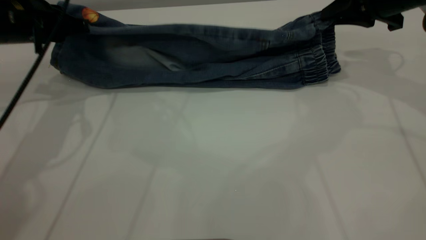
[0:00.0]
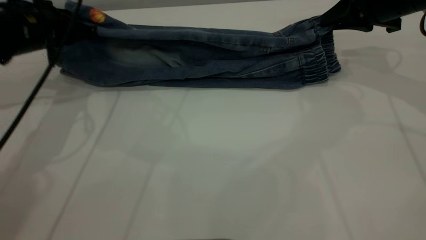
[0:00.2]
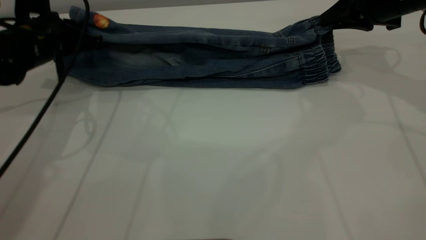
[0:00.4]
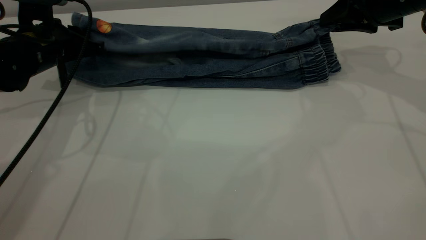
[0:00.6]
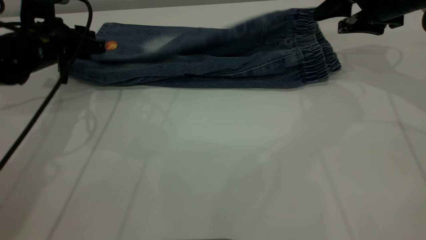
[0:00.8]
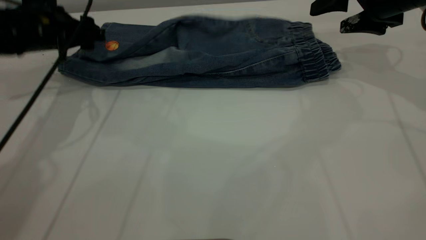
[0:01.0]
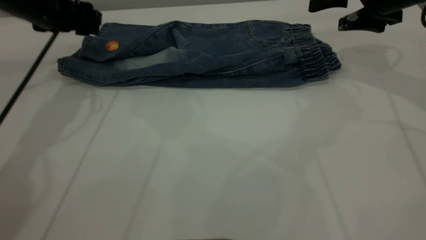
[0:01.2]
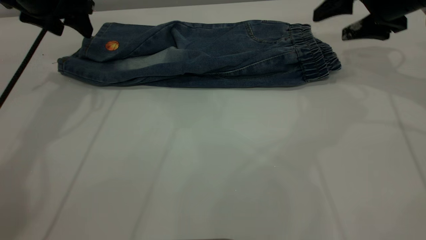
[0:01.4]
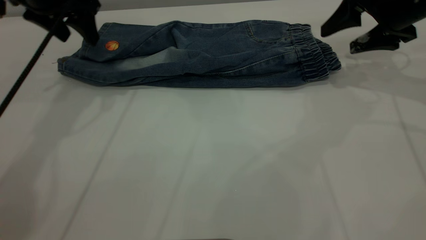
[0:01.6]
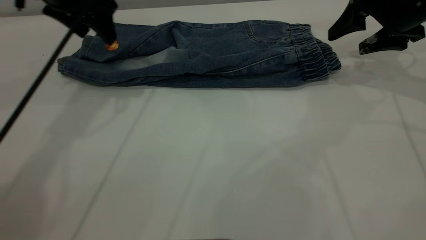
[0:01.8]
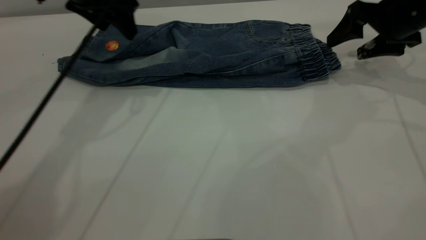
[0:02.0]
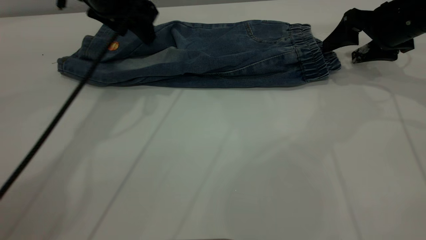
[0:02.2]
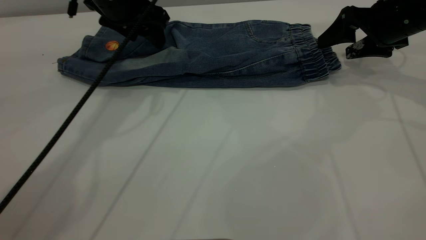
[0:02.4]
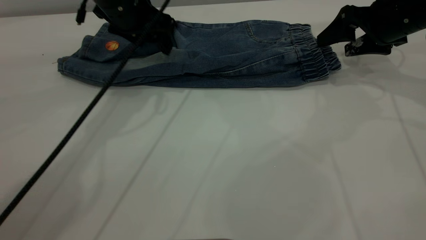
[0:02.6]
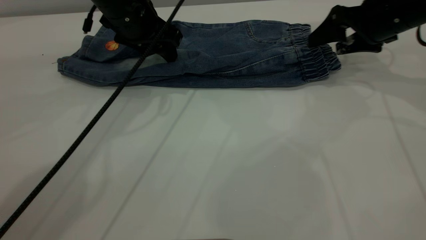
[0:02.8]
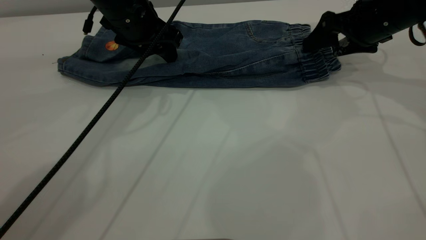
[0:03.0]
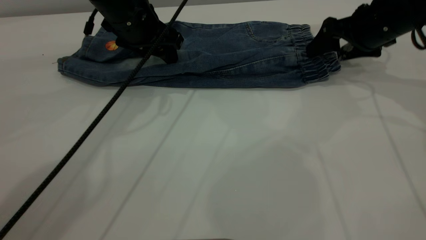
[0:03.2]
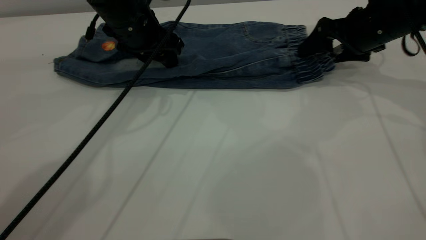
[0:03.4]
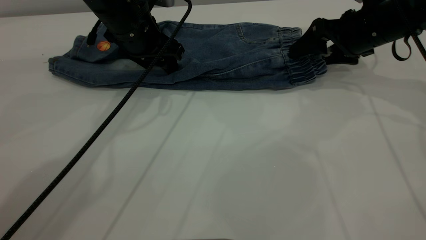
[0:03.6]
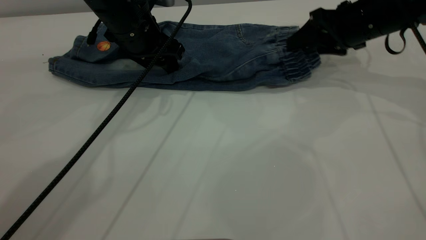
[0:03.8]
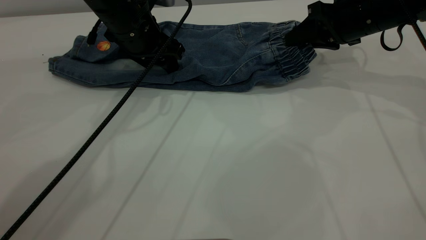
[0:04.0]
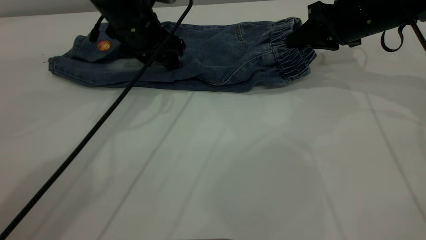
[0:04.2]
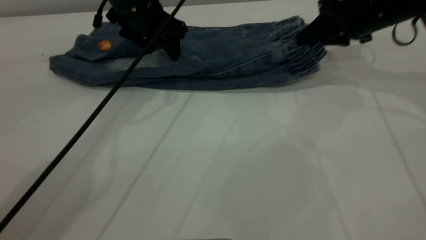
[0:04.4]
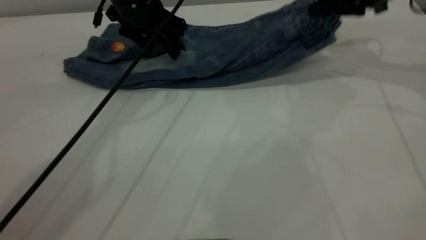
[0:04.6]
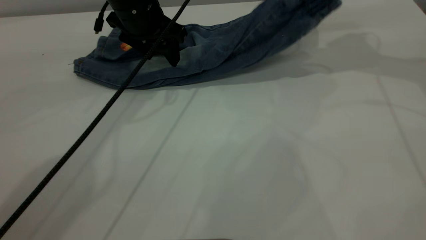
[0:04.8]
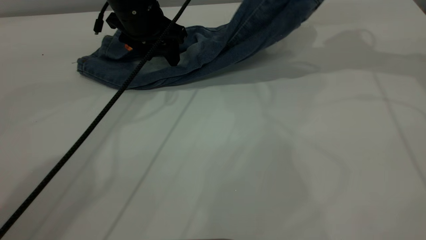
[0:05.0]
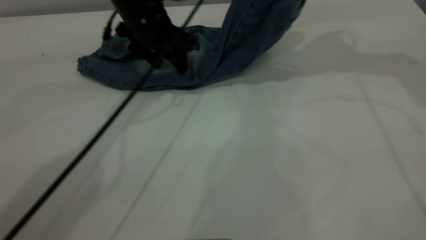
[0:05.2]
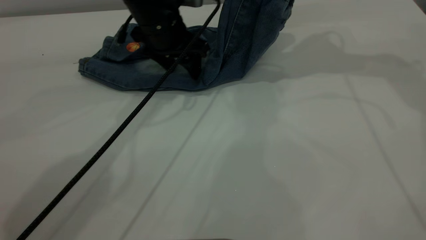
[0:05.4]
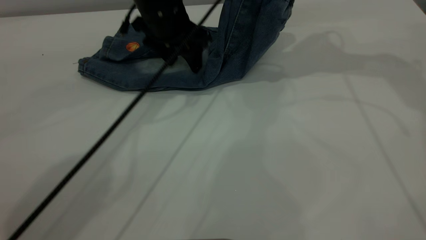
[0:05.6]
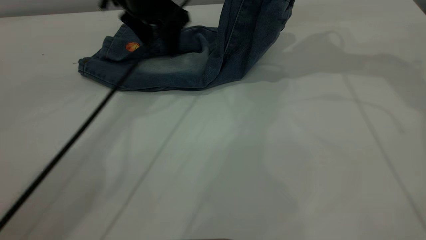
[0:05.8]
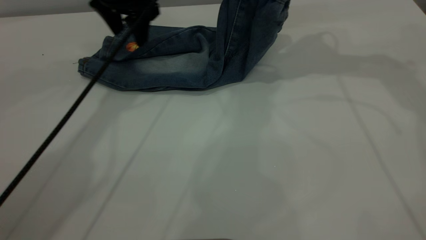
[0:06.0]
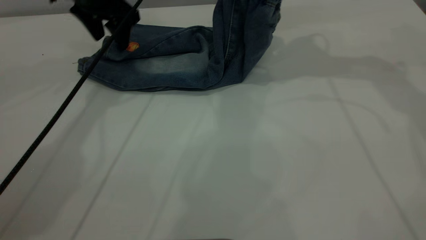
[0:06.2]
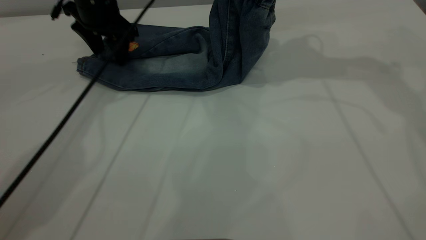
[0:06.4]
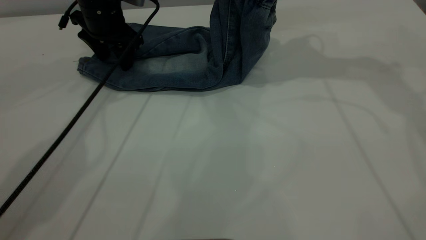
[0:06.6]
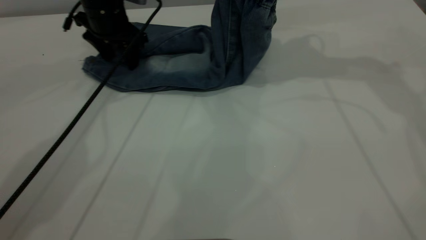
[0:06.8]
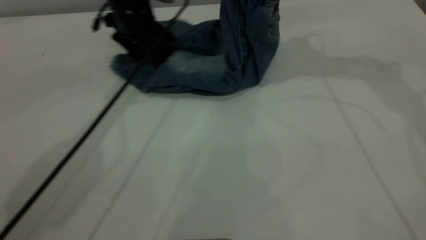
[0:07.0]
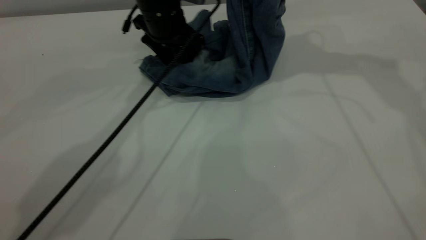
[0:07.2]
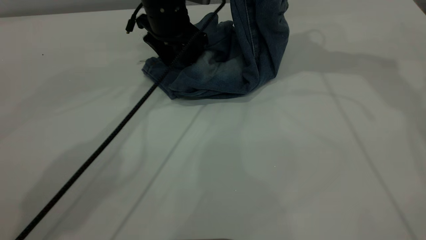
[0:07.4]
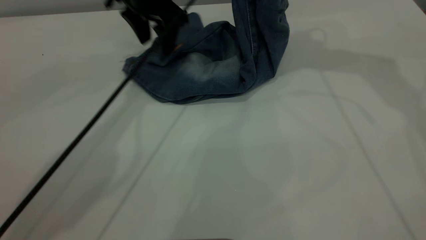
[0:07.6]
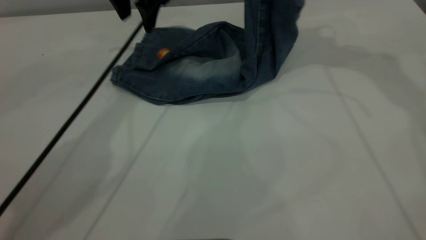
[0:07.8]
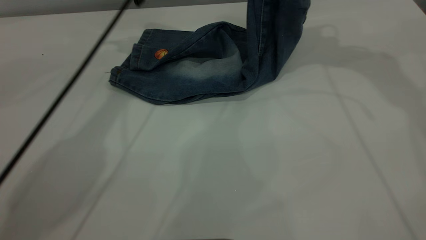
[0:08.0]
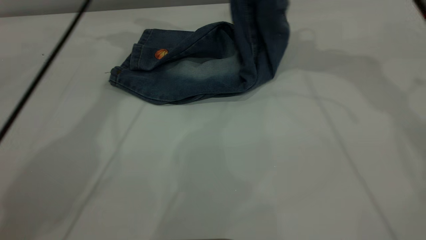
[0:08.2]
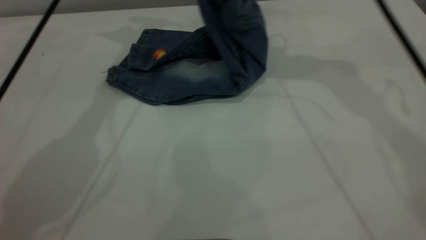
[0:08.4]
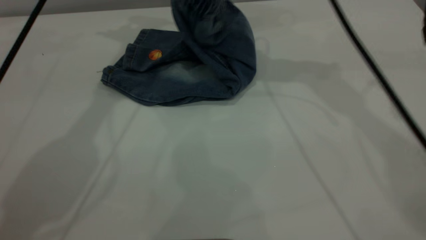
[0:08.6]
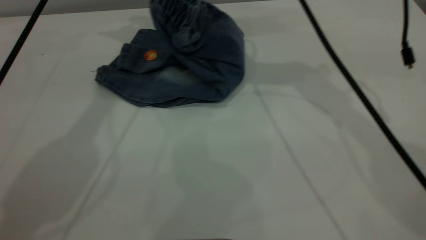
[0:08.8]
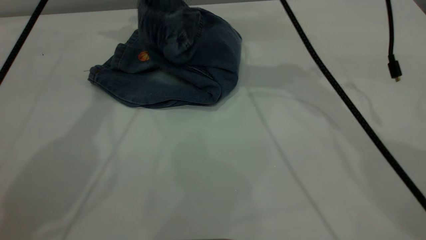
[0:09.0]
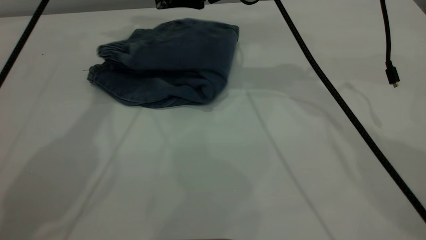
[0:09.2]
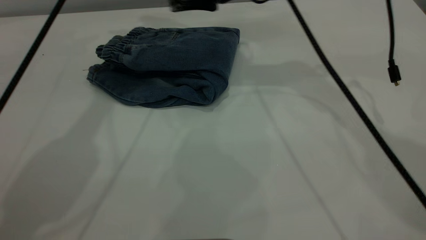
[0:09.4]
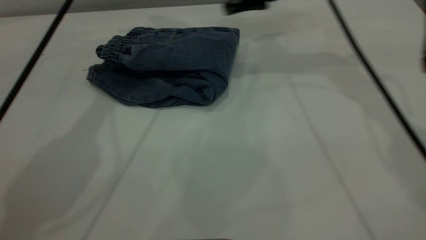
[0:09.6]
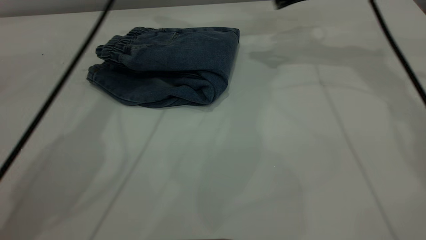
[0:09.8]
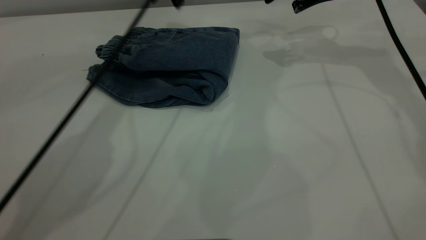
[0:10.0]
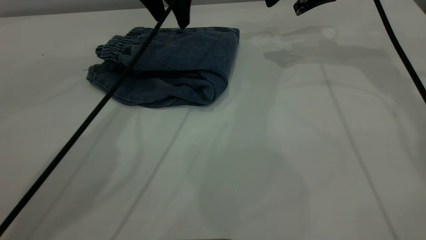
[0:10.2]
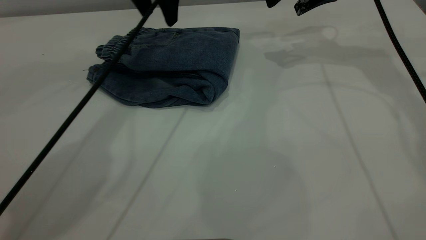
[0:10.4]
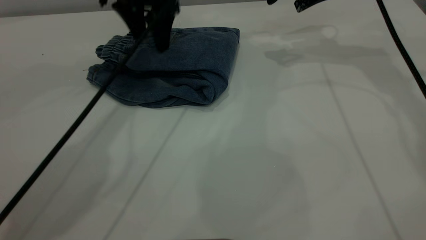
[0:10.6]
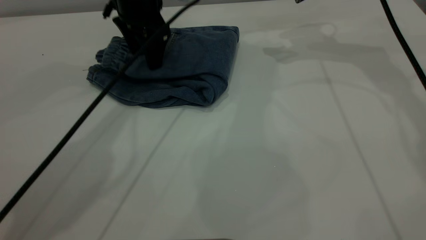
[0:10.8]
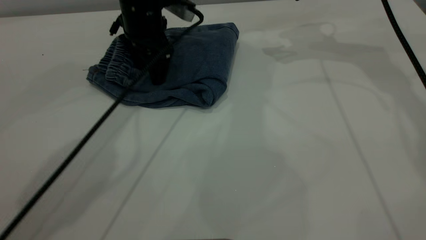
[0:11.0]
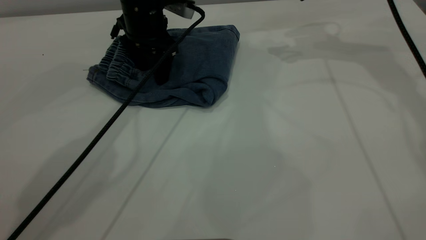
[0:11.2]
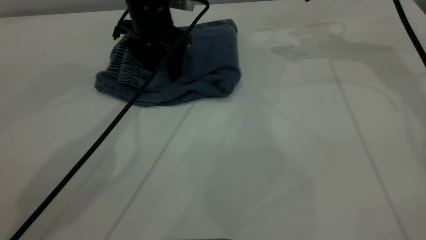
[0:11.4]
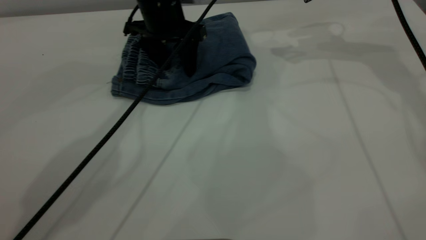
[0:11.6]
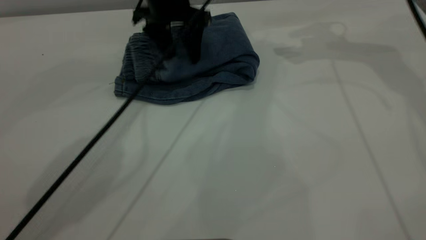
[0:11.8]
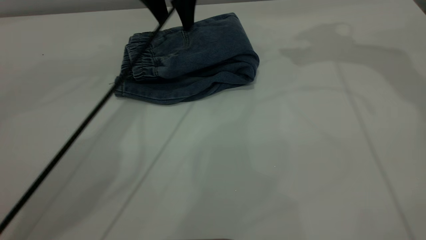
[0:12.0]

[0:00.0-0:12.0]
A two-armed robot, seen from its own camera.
Step, 0:01.4 to 0:09.2: Fold your pants from right to left.
0:00.0 to 0:01.6: The left gripper moves upward, roughly 5 cm, and opens up. Meanwhile the right gripper opens.
0:01.6 to 0:03.0: The left gripper travels to the right and downward by some 10 cm.
0:03.0 to 0:04.4: The right gripper closes up.
0:04.4 to 0:06.0: The left gripper shifts by approximately 5 cm. Meanwhile the right gripper is displaced upward and to the left by roughly 15 cm.
0:07.6 to 0:09.0: The left gripper moves upward, some 15 cm; the right gripper travels to the left and downward by roughly 15 cm, and opens.
0:09.0 to 0:10.4: The left gripper travels downward and to the right by approximately 15 cm; the right gripper goes approximately 15 cm to the right, and opens.
0:10.4 to 0:12.0: The right gripper goes roughly 10 cm upward, while the left gripper reaches some 10 cm downward, then returns.

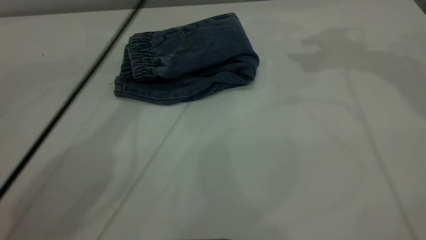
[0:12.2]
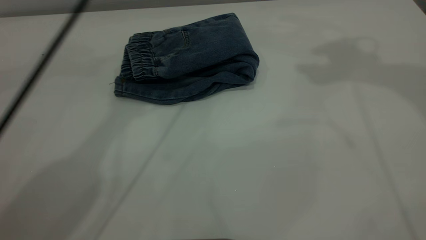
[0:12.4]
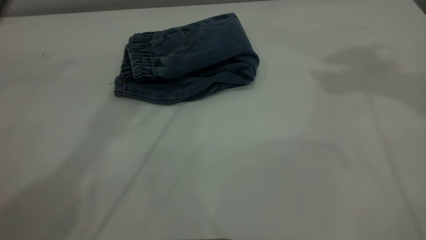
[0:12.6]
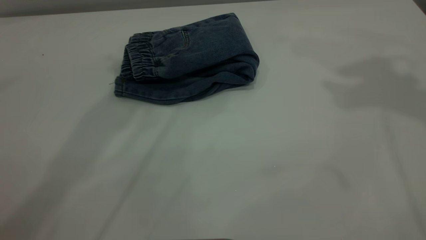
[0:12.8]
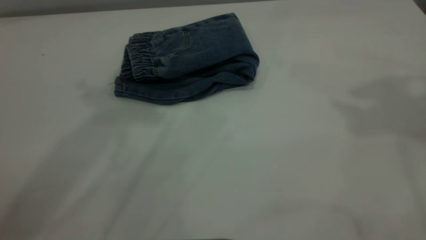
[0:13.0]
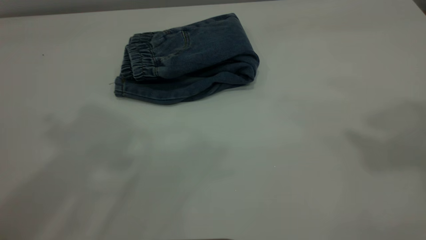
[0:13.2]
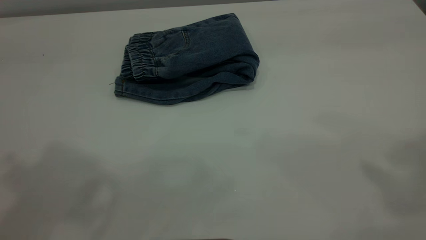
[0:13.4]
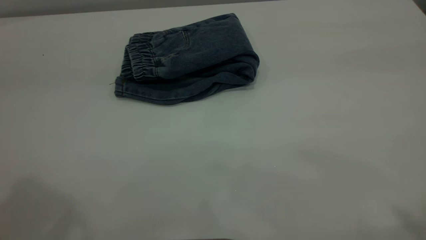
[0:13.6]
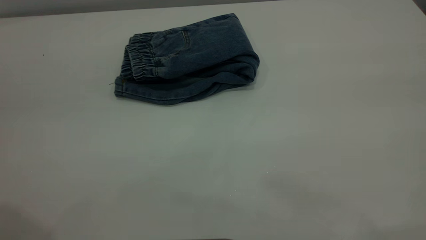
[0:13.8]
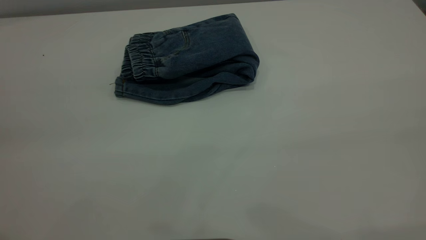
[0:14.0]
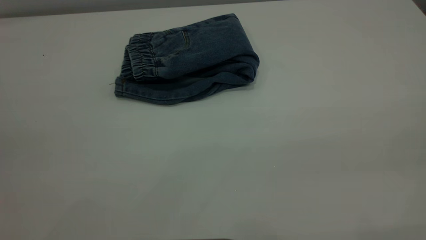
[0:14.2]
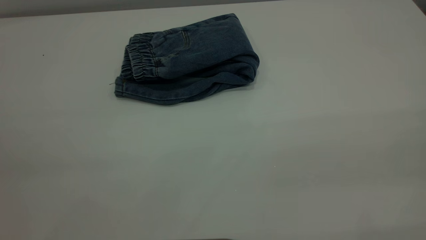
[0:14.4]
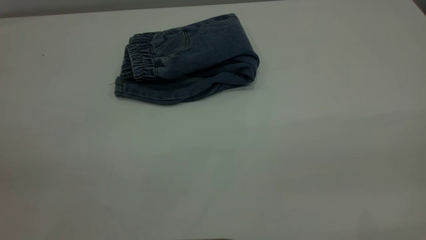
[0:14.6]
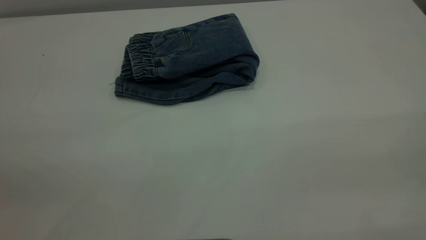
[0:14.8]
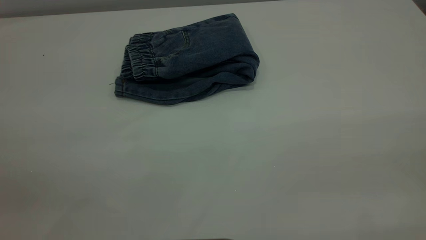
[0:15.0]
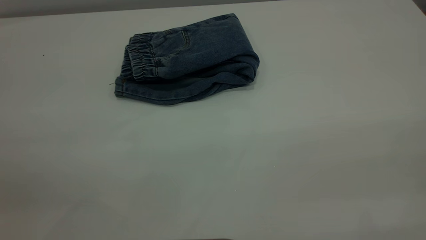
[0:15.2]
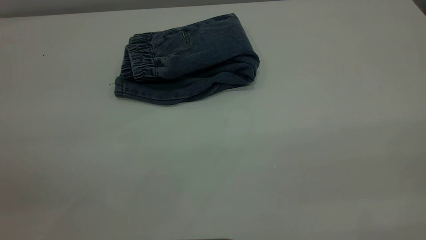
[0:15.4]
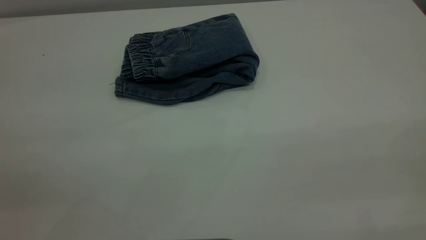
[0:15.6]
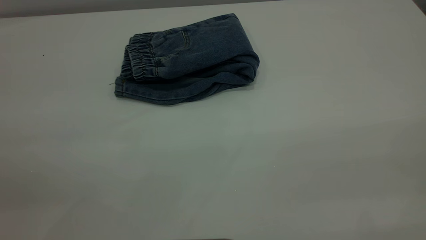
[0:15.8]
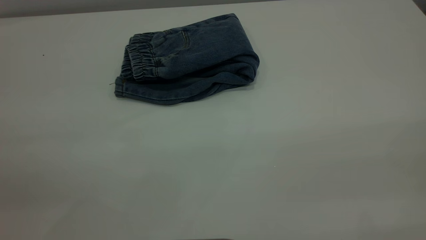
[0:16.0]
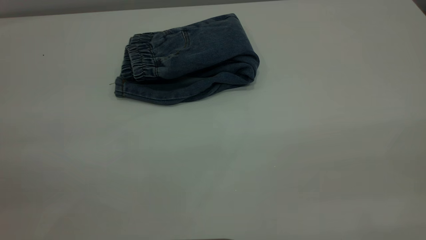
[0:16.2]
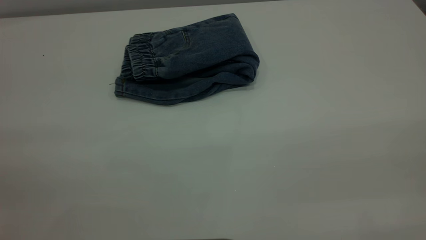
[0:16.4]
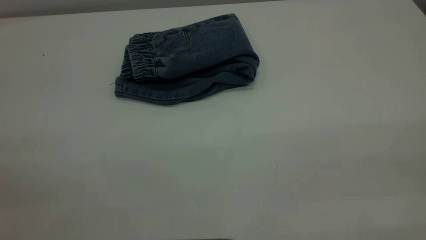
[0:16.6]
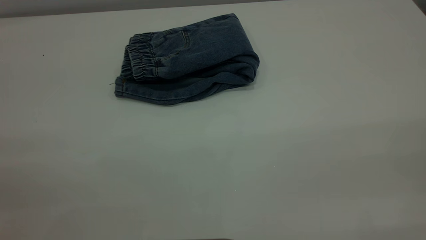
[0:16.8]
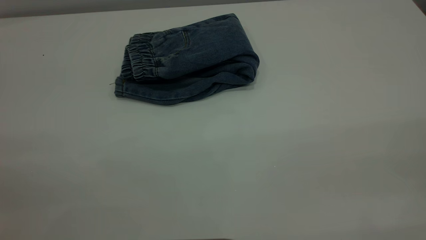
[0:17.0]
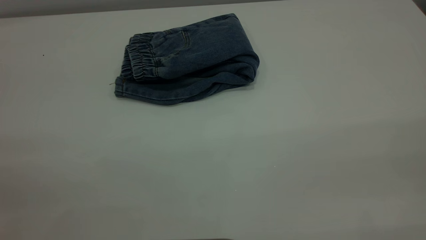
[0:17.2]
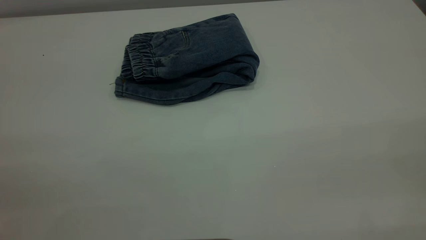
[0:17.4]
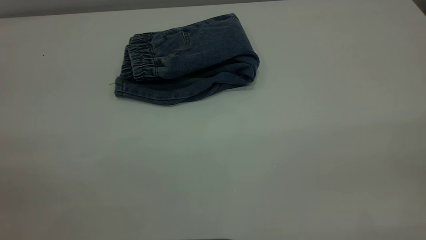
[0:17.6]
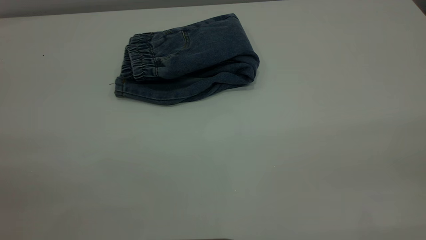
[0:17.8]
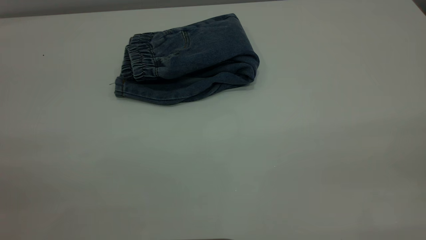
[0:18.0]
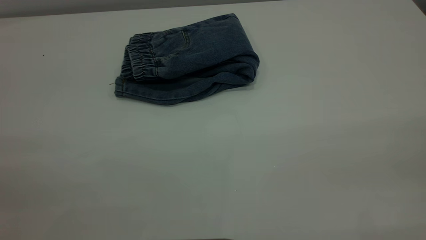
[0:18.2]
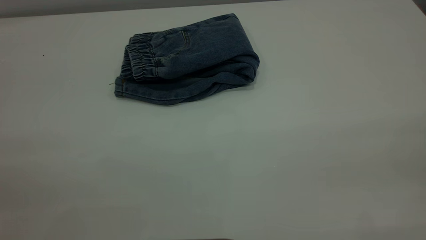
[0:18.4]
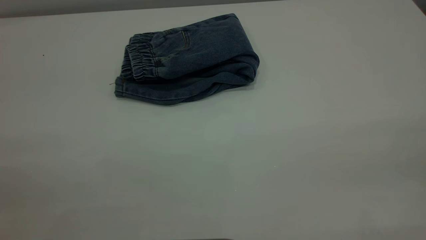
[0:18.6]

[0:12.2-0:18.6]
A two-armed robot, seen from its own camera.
0:12.2 to 0:13.8: The left gripper shifts some 40 cm backward and to the left.
